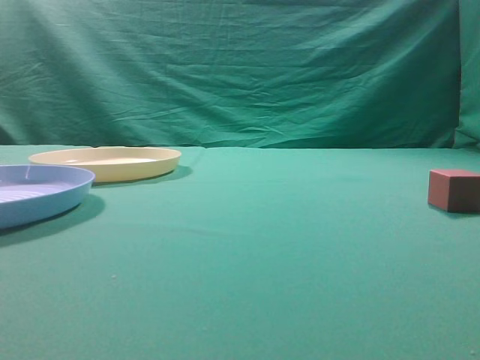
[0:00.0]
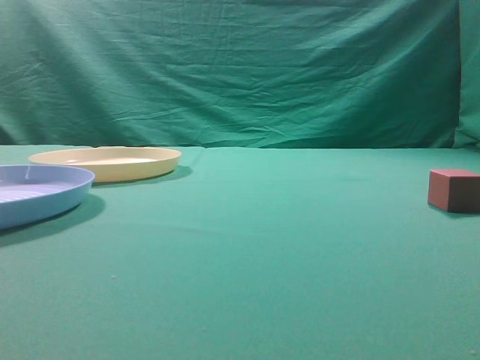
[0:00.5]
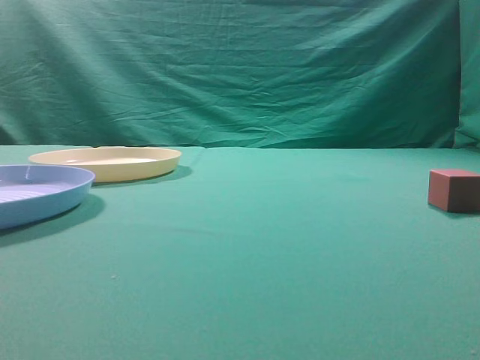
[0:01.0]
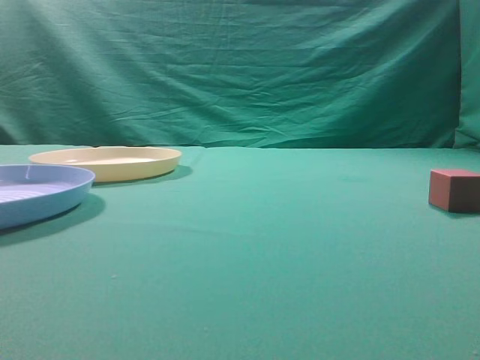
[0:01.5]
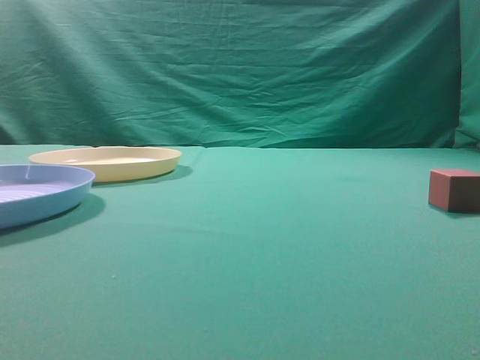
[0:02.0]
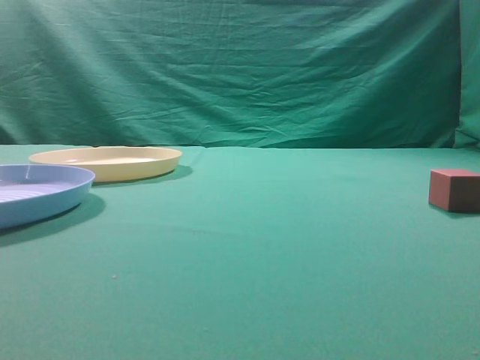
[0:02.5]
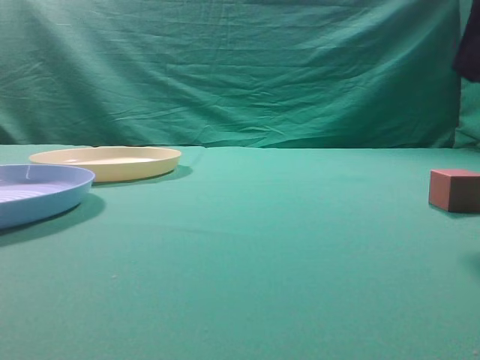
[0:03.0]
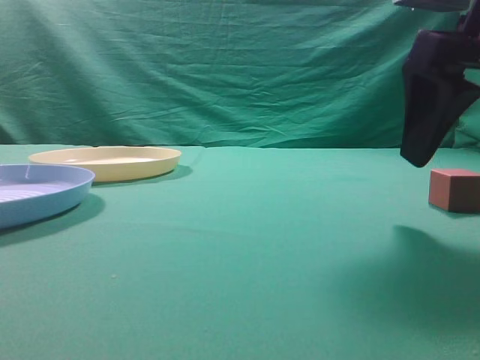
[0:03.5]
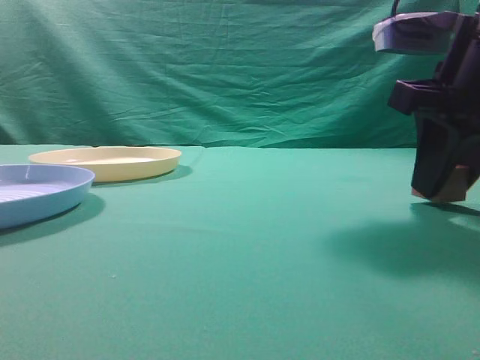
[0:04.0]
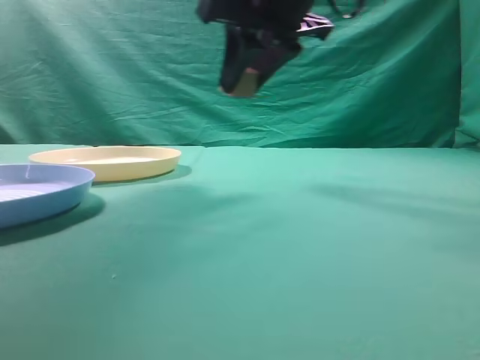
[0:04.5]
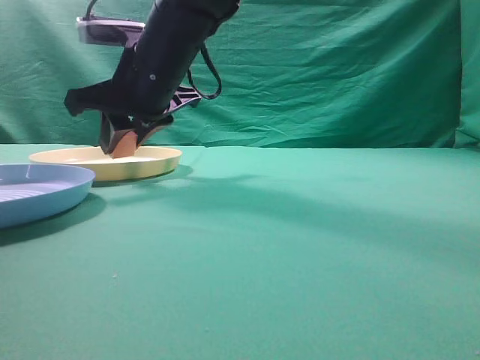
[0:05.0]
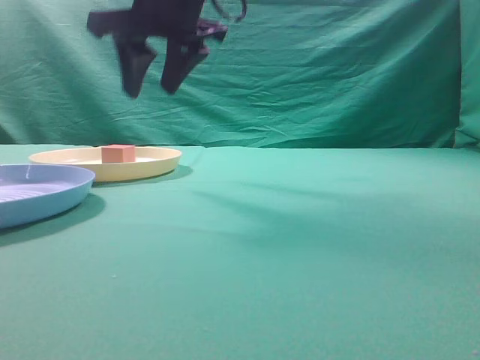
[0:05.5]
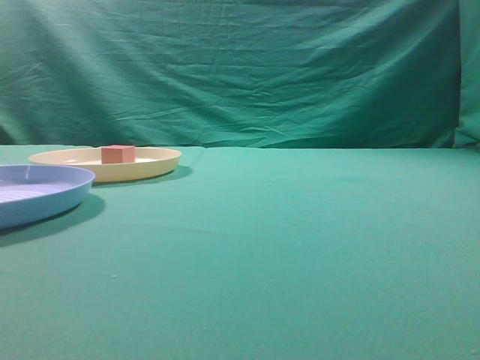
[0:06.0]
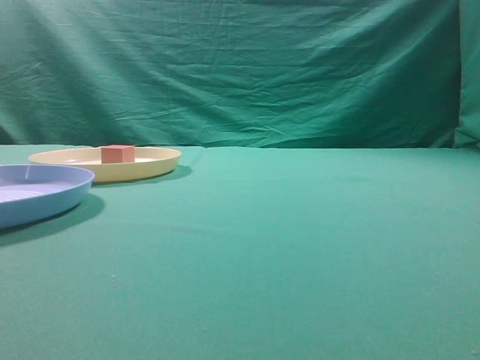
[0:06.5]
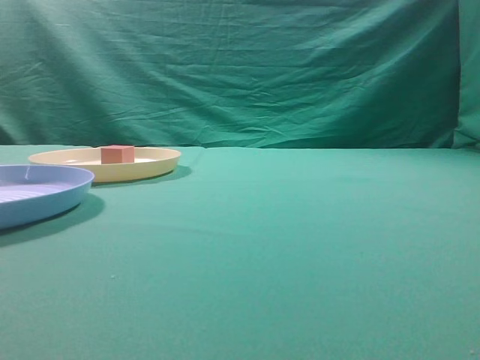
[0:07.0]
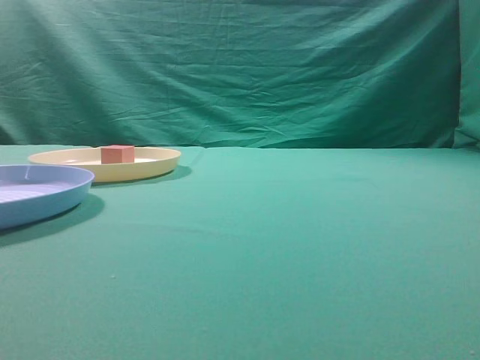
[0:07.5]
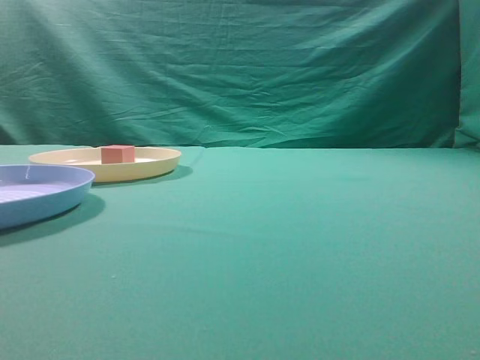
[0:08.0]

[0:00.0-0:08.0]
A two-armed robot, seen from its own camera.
Task of the whole recording: pick up the cube block from the table and put it on the plate.
Step, 0:00.0 to 0:03.5: Grasp the small cube on the table.
Step, 0:04.0 to 0:04.5: Place it into the yellow plate.
0:02.0 to 0:04.0: The right gripper moves forward, roughly 20 cm, and opens.
0:04.0 to 0:06.0: The right gripper heads upward and to the left, covering some 30 cm, and closes its fingers.
